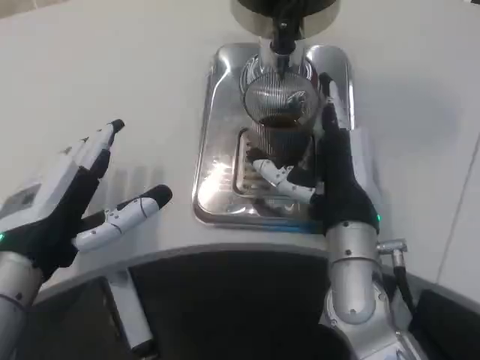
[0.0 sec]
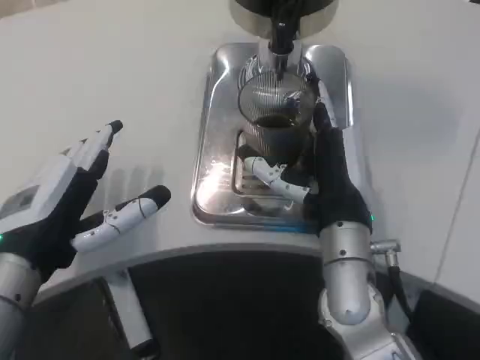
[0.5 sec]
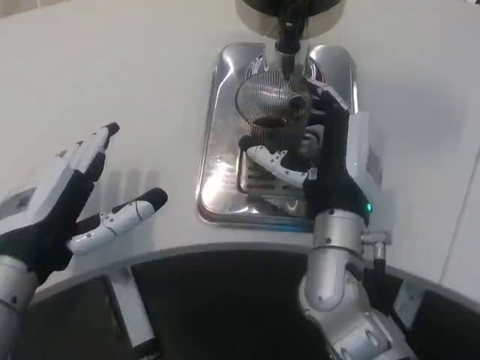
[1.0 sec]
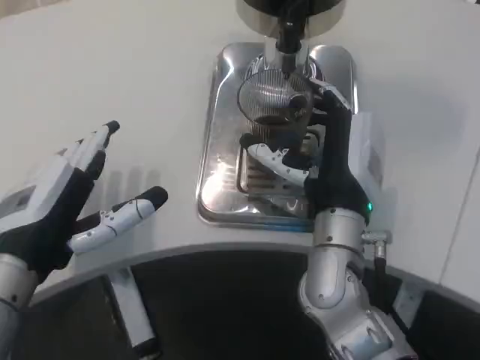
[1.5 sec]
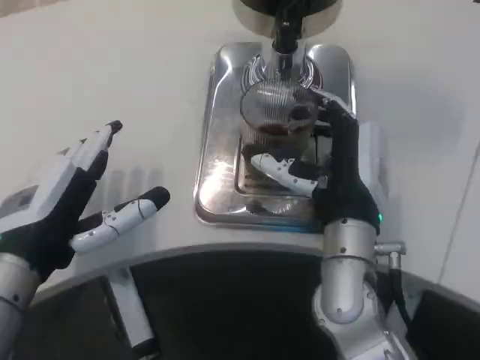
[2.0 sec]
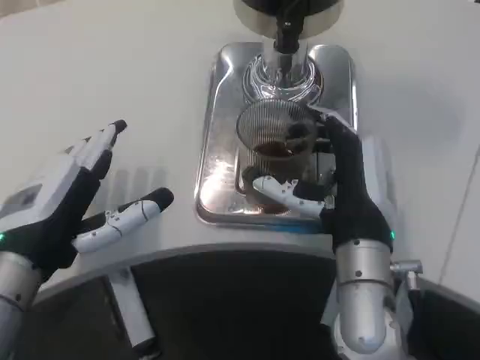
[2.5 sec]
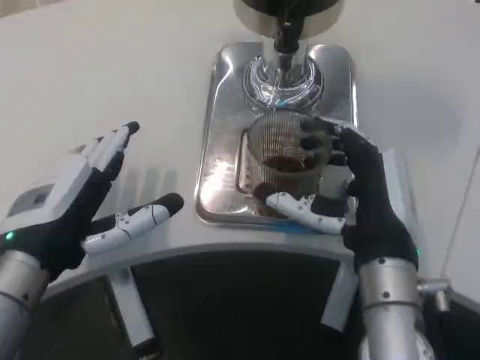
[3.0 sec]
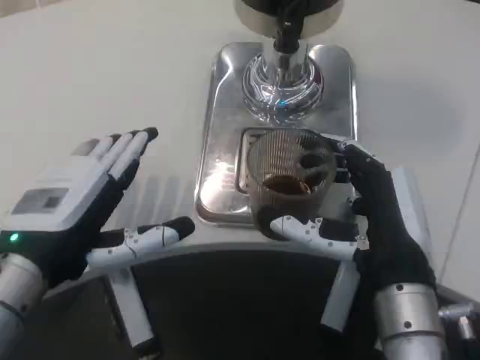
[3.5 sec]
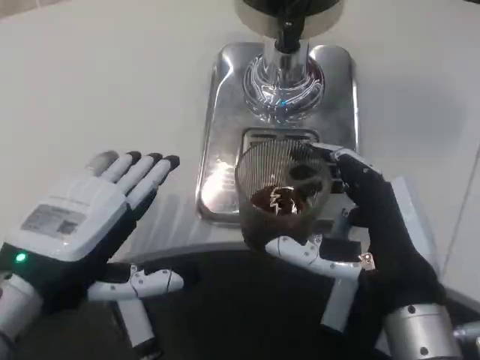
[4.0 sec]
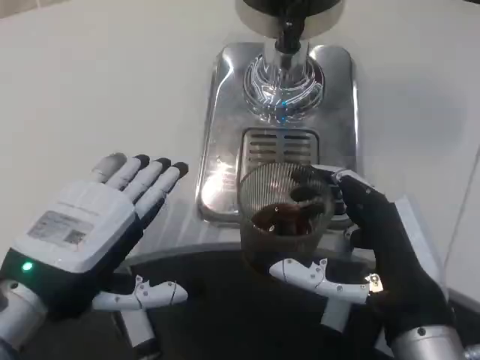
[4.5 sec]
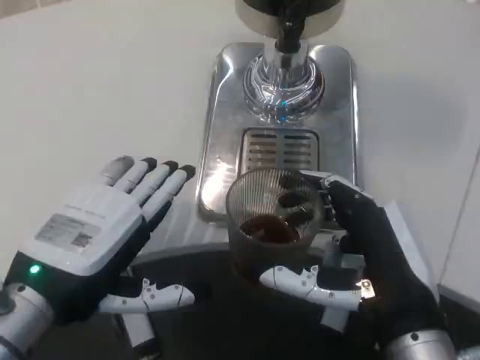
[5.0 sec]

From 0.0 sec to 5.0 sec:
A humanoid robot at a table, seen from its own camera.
Task of the whole recording: Grasp the cup under the faucet to collect the drink, then remove the cup.
From 0.0 sec to 2.5 sec: The hands make only small movements.
From 2.5 sec to 5.0 sec: The right hand shifts roughly 10 cm backward.

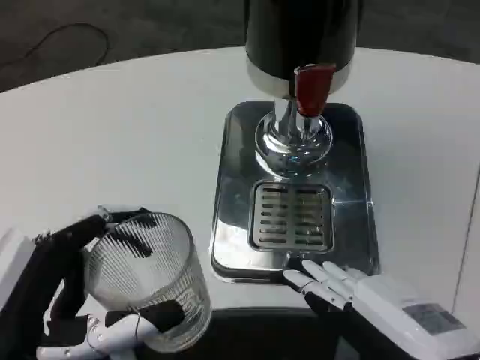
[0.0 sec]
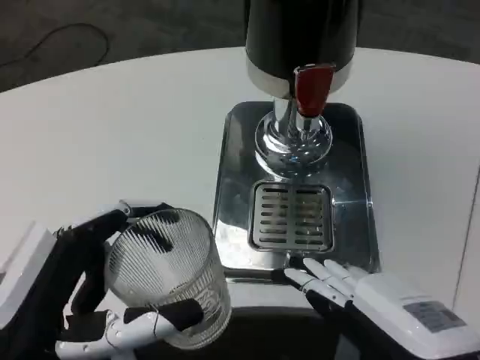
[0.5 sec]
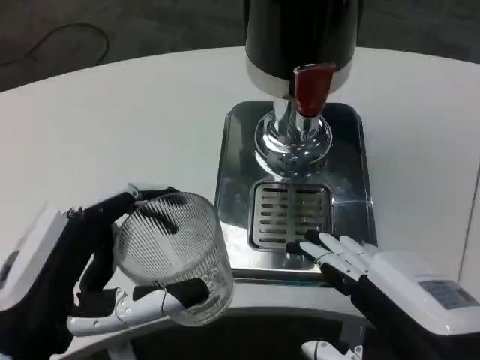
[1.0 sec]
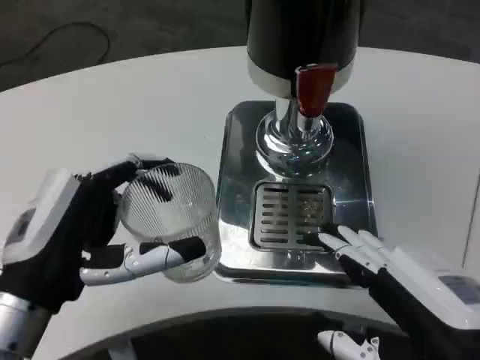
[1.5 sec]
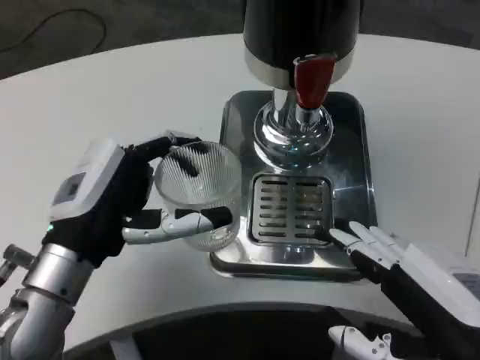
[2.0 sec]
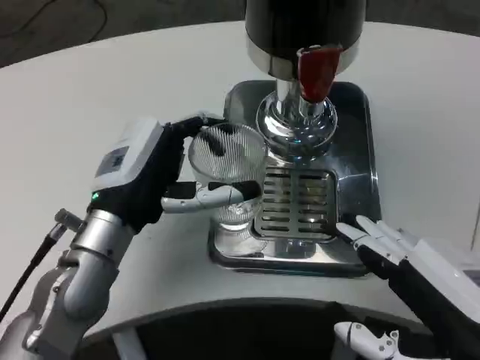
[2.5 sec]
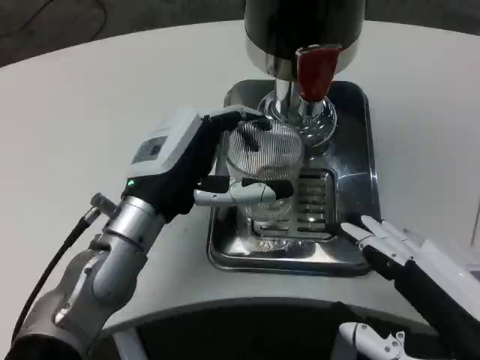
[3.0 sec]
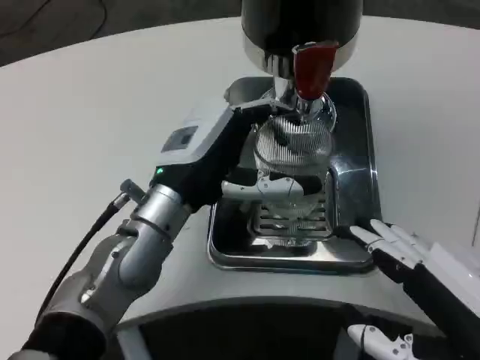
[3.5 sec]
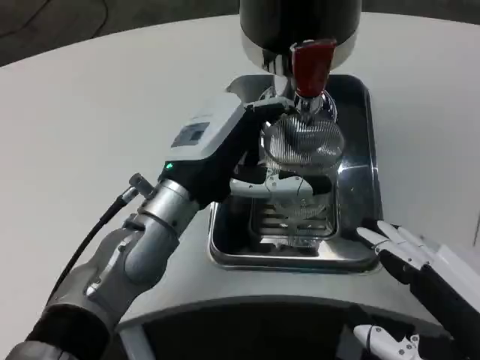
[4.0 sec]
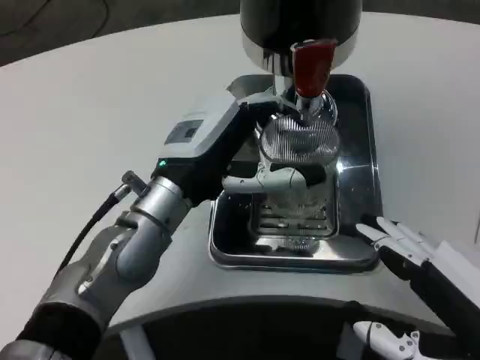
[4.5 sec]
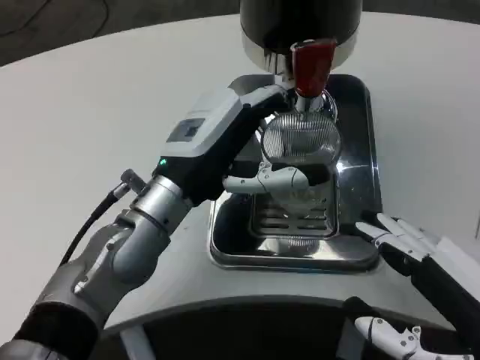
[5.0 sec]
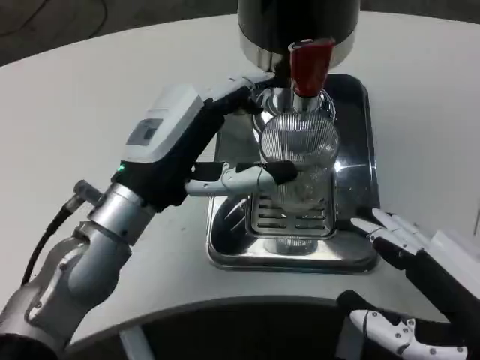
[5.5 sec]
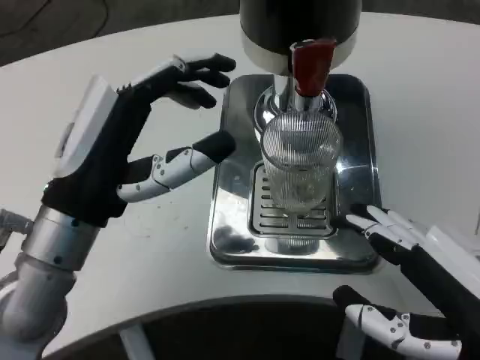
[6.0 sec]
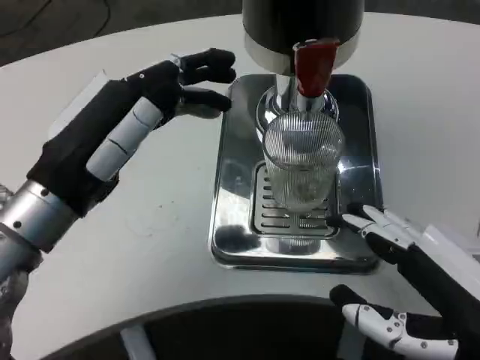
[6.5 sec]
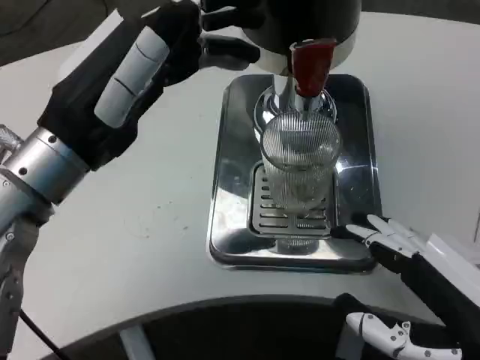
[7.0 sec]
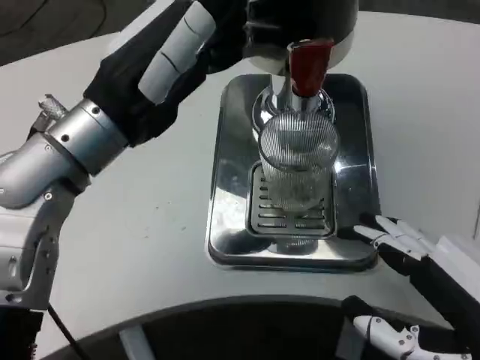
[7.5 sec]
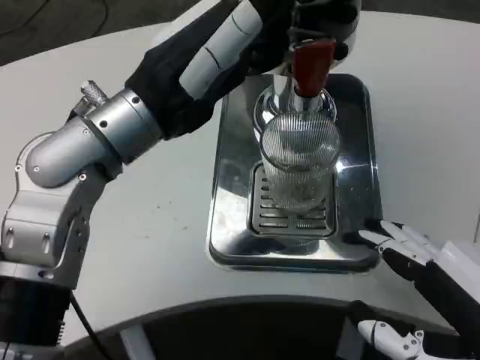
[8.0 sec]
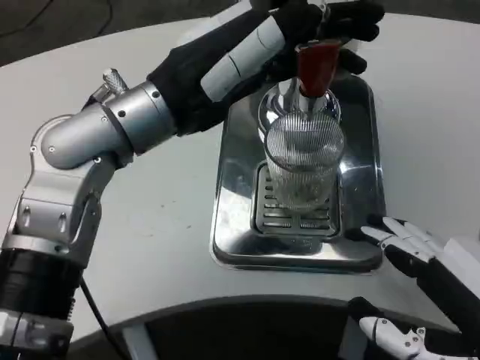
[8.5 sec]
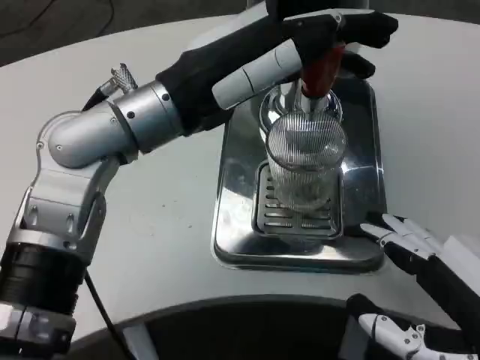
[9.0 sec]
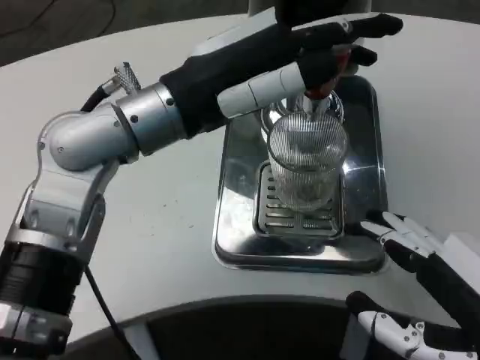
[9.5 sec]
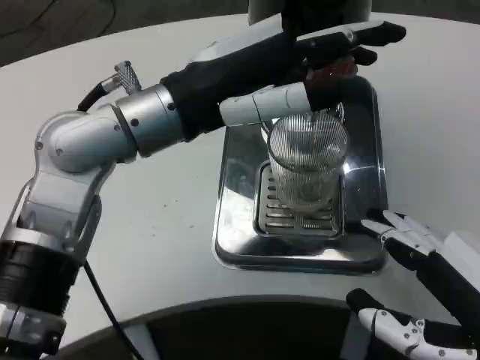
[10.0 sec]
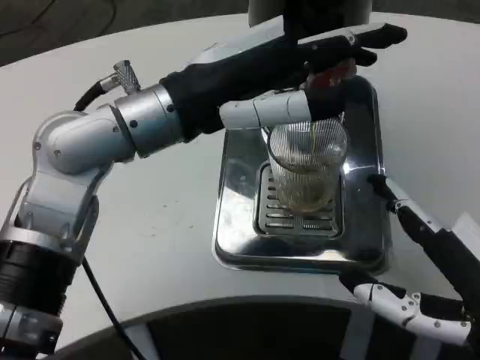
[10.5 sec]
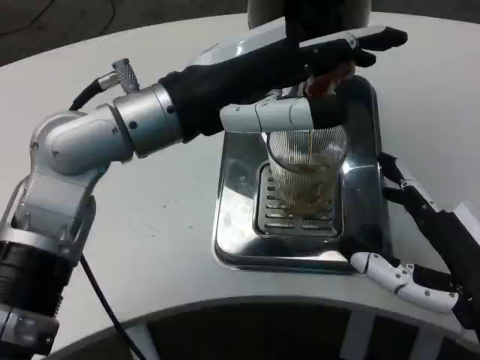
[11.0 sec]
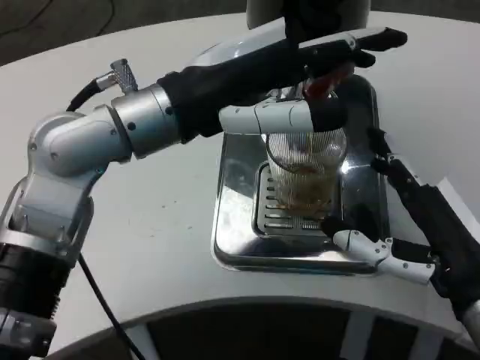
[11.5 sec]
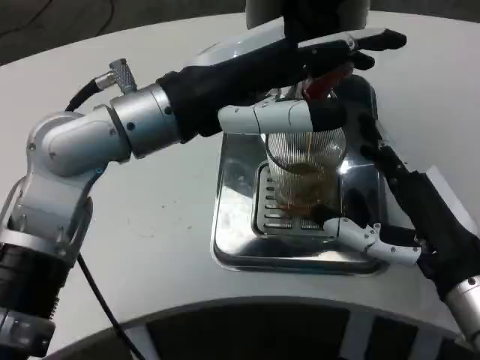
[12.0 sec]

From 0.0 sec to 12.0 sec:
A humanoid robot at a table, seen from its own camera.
Task of the whole recording: Grasp the cup under the faucet to collect the drink, then remove the cup.
From 0.0 sec to 2.0 sec: The left hand heads forward, covering roughly 15 cm.
From 2.0 sec to 4.0 sec: The left hand shifts approximately 10 cm to the right and forward.
From 4.0 sec to 6.0 sec: The left hand goes approximately 10 cm backward and to the left.
From 6.0 sec to 8.0 sec: The left hand travels upward by approximately 10 cm.
From 10.0 sec to 12.0 sec: The right hand shifts about 10 cm forward.

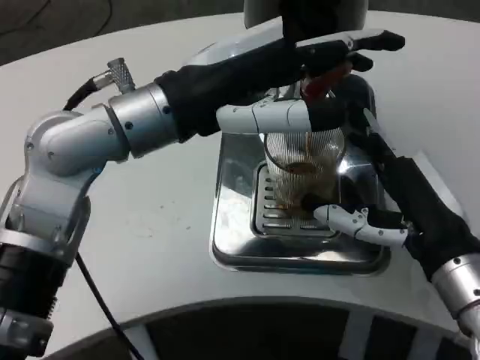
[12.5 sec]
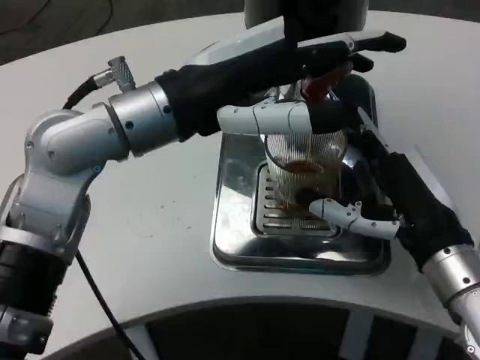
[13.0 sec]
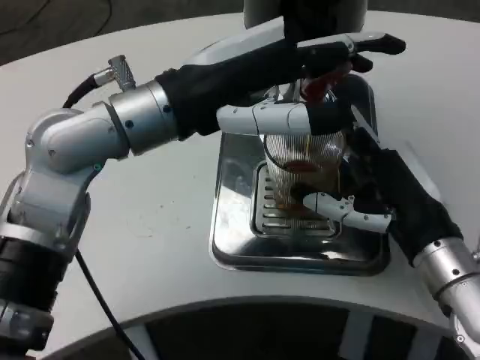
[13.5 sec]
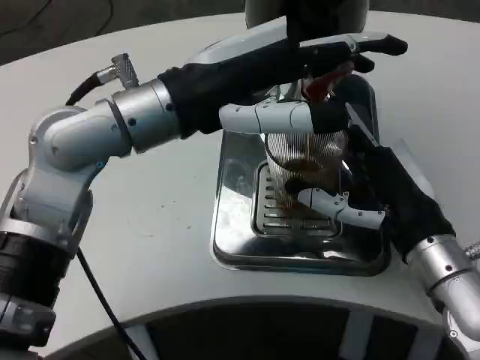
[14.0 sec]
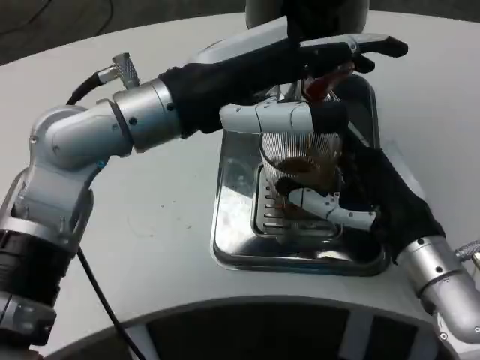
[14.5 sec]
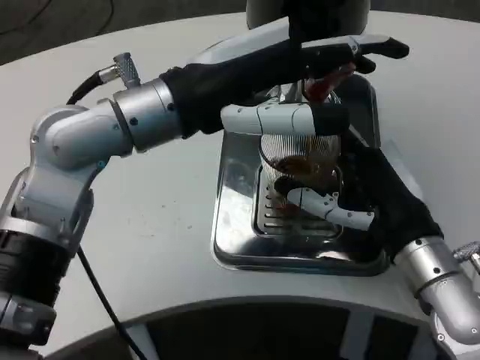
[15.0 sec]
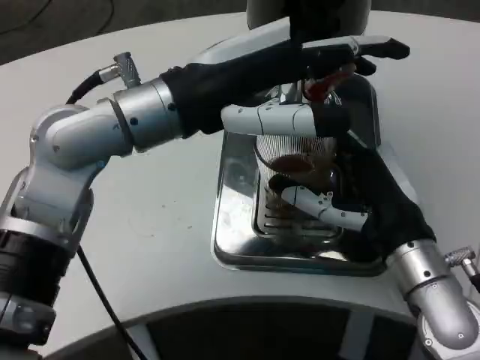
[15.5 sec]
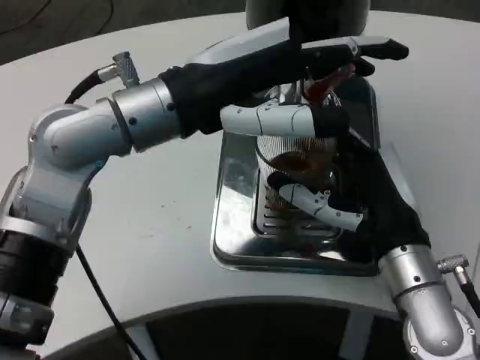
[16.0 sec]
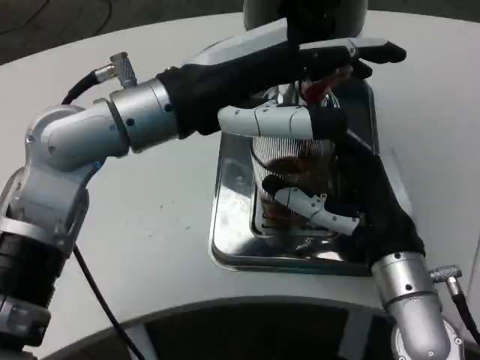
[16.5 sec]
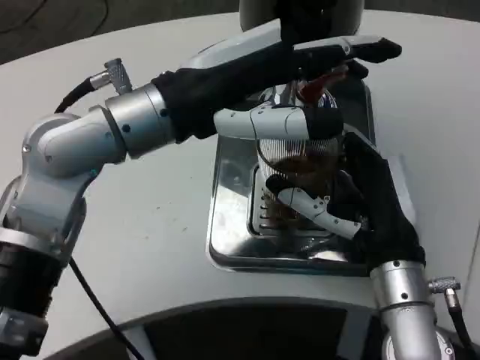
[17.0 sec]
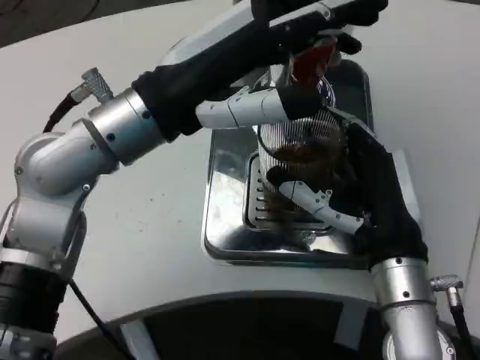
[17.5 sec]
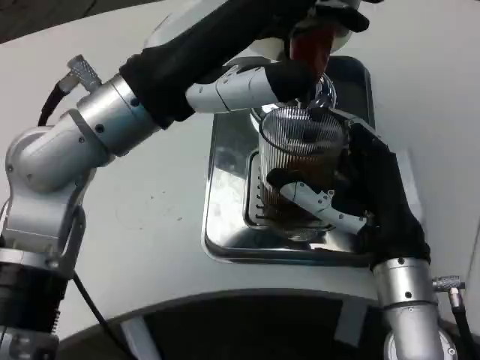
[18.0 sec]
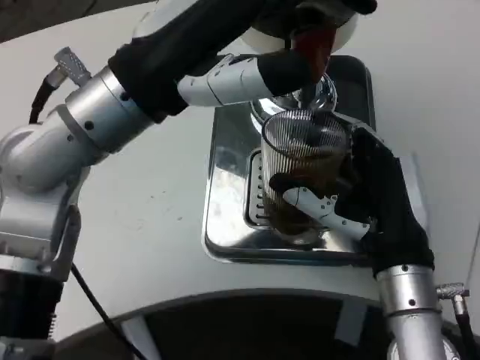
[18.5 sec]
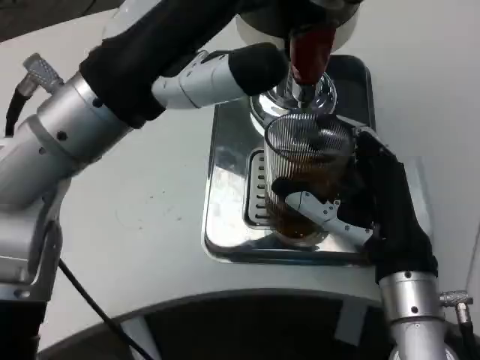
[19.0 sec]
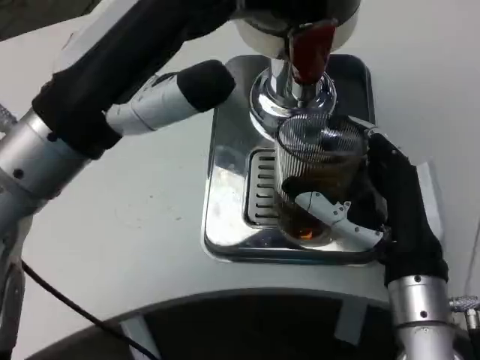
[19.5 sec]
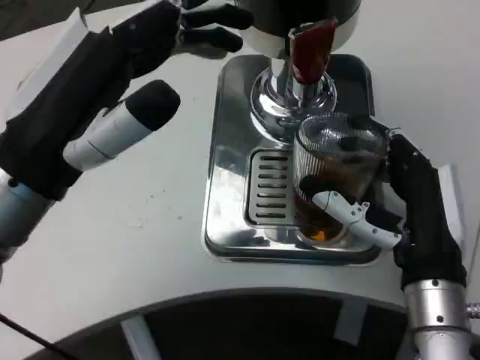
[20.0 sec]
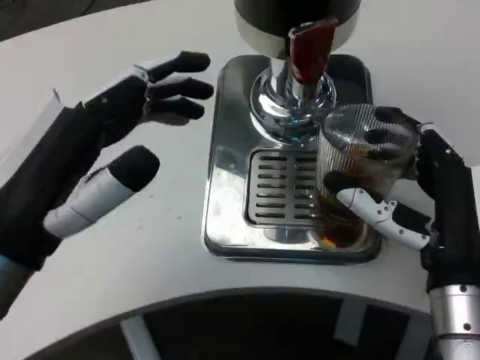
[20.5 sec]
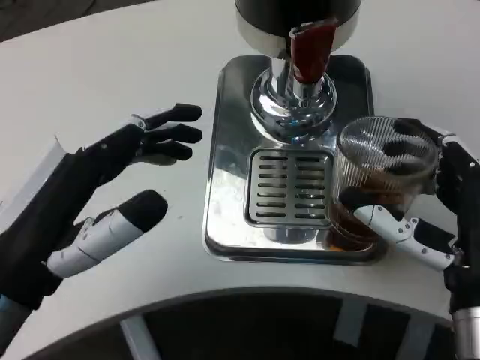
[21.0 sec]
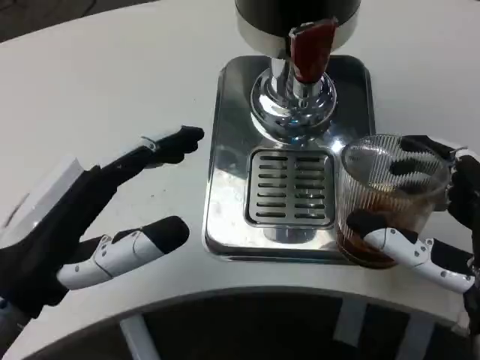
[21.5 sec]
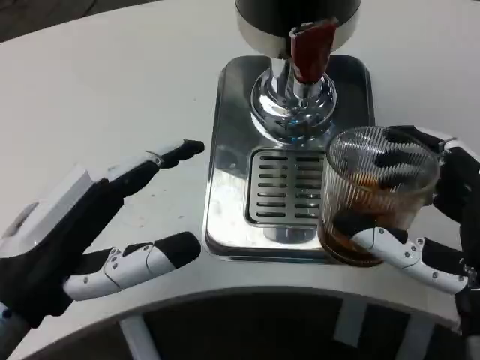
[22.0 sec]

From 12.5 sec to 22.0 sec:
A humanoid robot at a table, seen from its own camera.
Task of the whole recording: Grasp the cup under the faucet to collect the drink, then remove the cup.
From 14.5 sec to 16.5 sec: The hands make only small movements.
From 18.0 sec to 20.0 sec: The left hand heads backward and to the left, covering about 10 cm.
From 20.0 sec to 22.0 sec: The right hand goes some 5 cm backward. Meanwhile the left hand shifts some 10 cm downward and backward.
